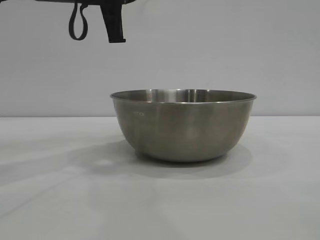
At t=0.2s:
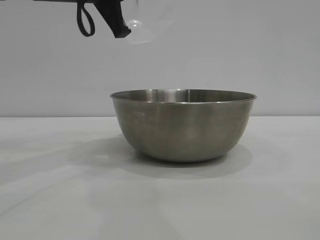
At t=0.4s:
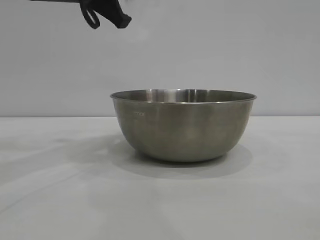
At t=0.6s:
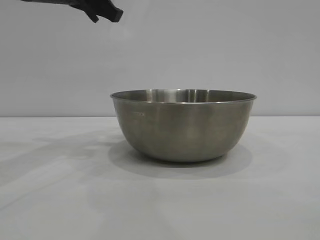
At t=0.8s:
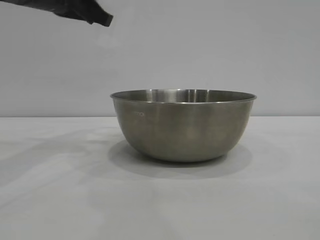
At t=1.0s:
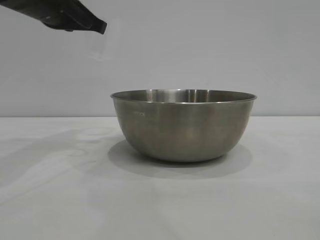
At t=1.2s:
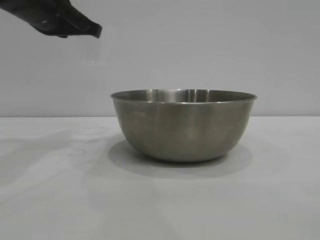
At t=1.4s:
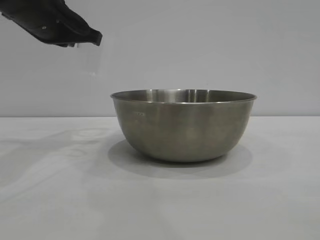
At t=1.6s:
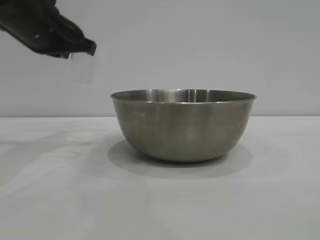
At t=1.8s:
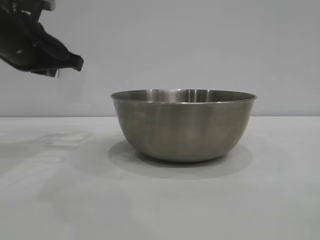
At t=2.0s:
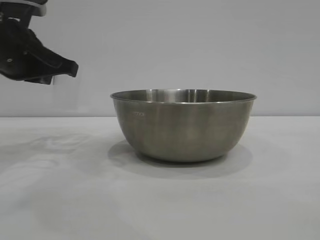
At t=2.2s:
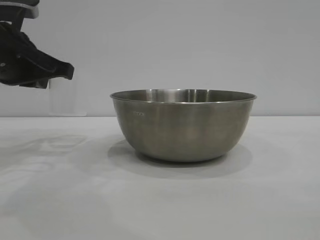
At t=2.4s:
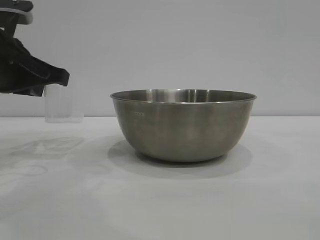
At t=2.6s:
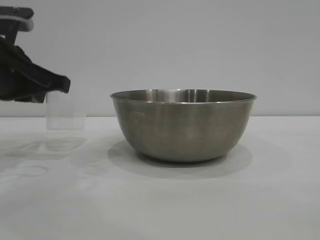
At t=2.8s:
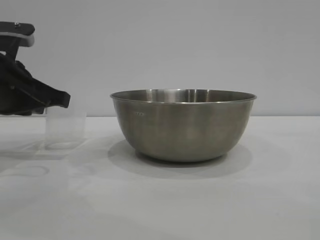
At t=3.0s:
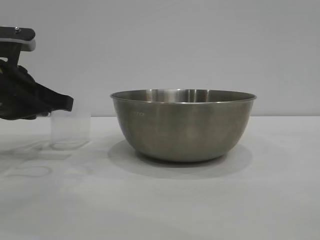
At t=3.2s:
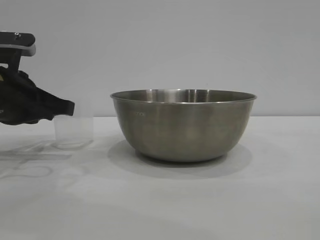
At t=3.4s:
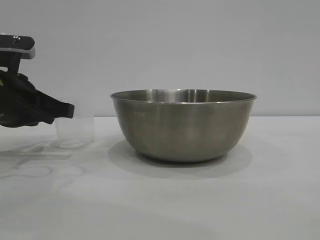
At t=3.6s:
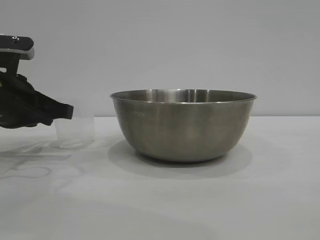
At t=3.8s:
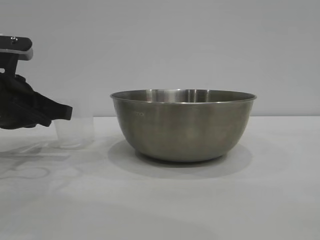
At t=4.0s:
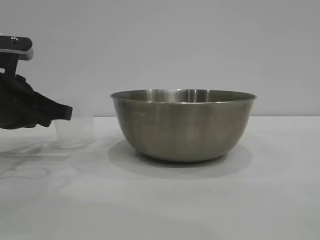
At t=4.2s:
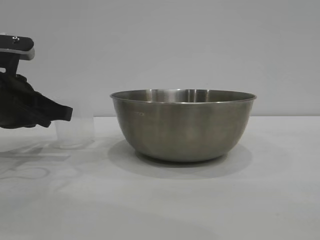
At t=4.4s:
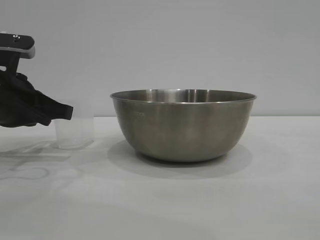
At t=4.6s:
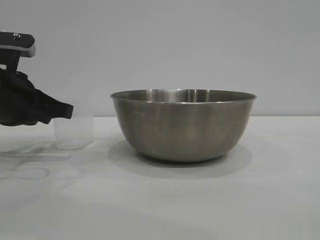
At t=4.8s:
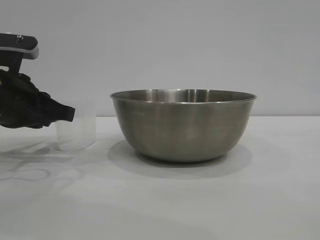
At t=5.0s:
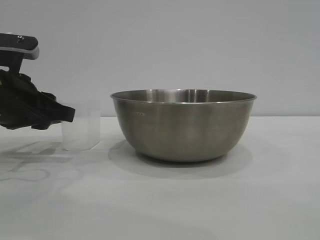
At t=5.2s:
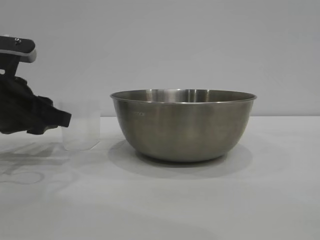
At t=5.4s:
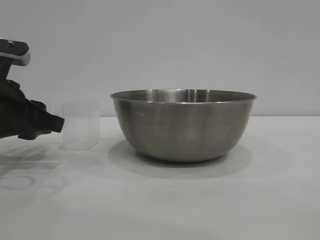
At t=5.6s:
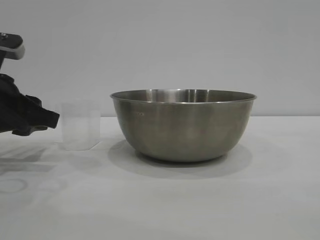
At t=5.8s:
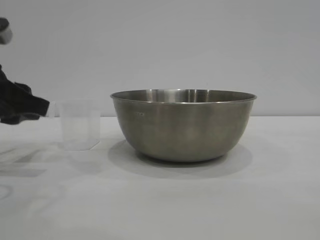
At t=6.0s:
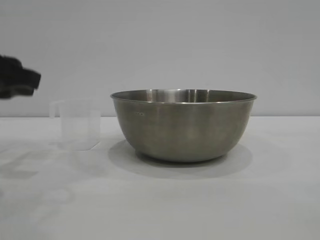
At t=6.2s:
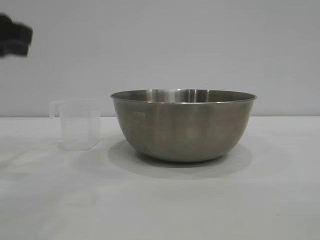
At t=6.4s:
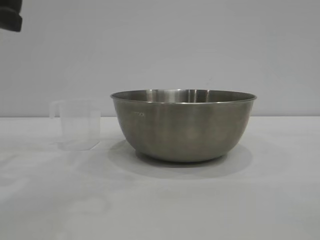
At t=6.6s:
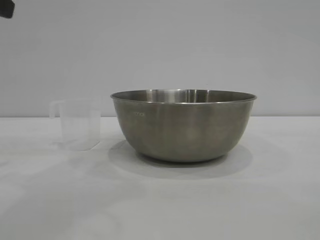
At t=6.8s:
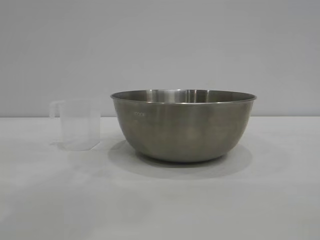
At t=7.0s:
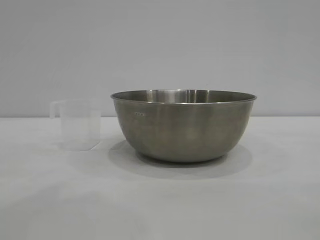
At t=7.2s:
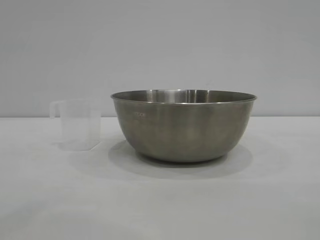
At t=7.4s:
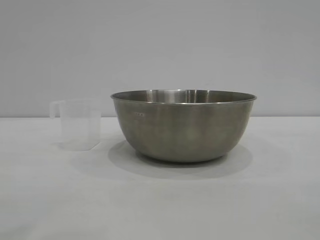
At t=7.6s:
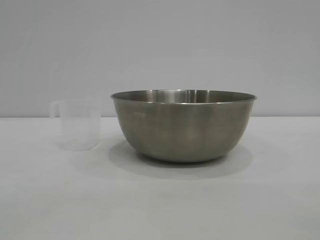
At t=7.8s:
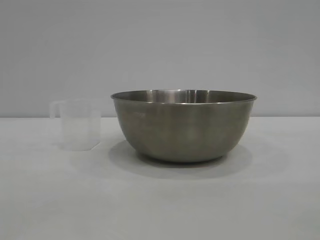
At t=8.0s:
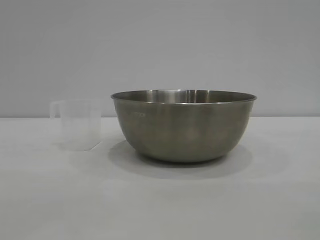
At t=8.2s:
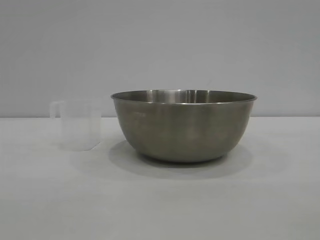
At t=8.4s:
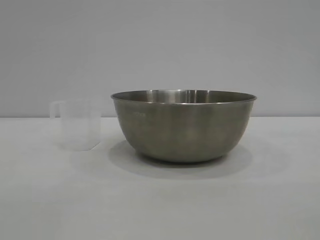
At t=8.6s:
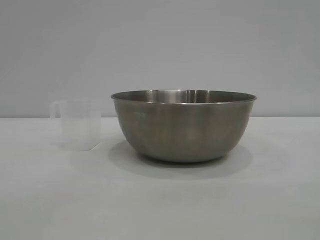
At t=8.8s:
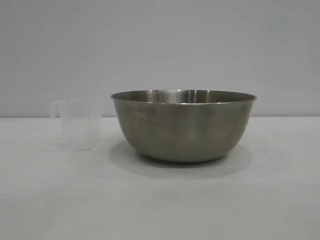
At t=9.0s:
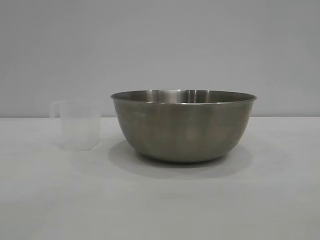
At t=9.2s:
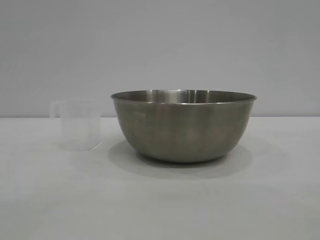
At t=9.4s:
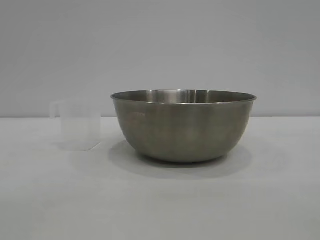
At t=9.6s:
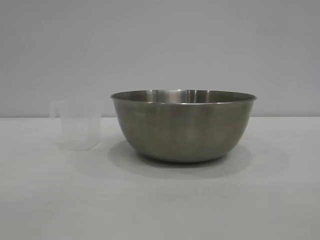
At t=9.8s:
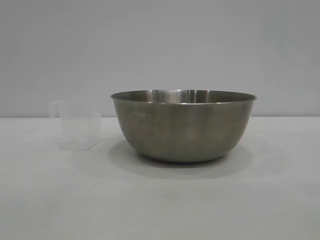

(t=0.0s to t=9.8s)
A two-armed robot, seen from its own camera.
Task of the whole recording: the right gripper grasp the rice container and place it in the center of the table, the left gripper grasp the rice scoop and pour the rice into the rice container.
Step, t=0.0s - t=5.8s: Place the cup on the table with the left gripper.
